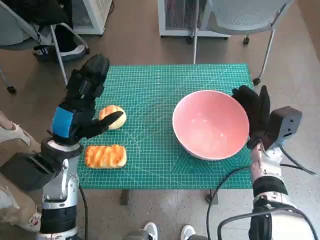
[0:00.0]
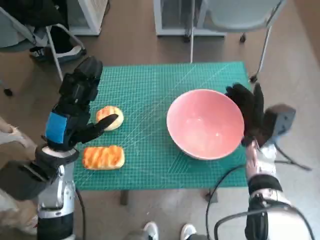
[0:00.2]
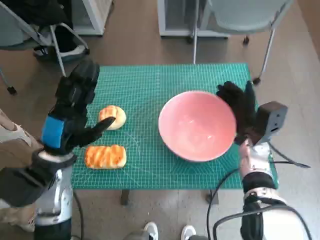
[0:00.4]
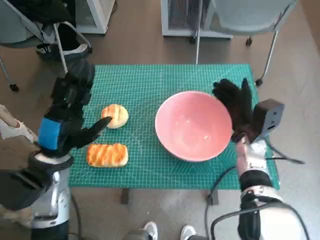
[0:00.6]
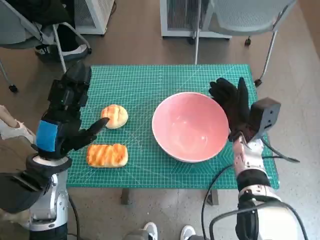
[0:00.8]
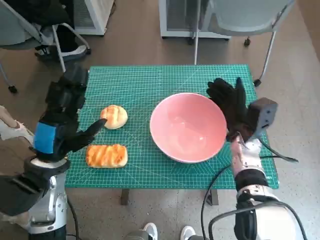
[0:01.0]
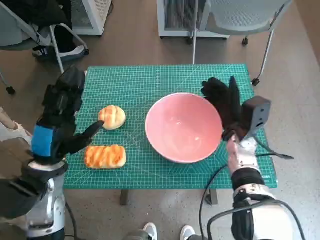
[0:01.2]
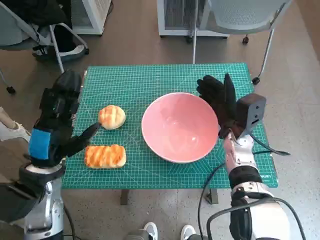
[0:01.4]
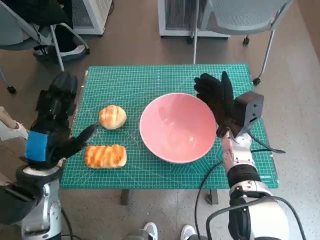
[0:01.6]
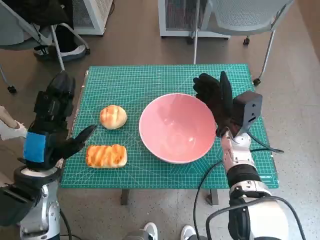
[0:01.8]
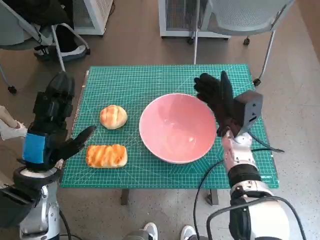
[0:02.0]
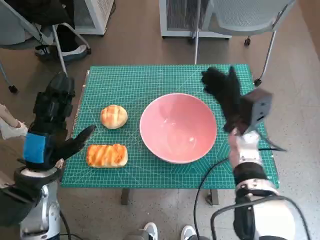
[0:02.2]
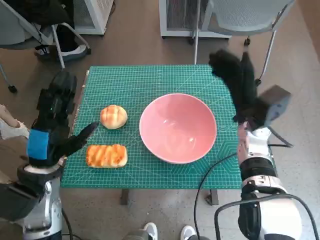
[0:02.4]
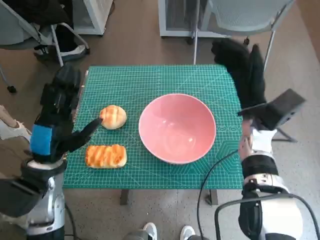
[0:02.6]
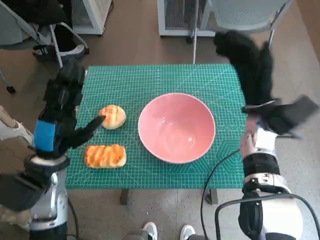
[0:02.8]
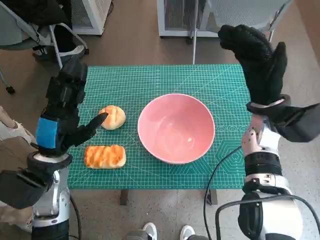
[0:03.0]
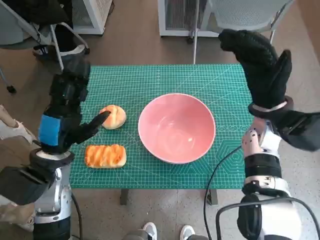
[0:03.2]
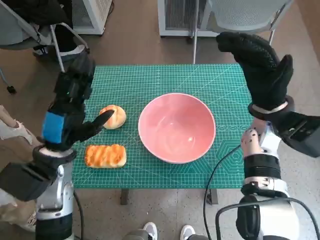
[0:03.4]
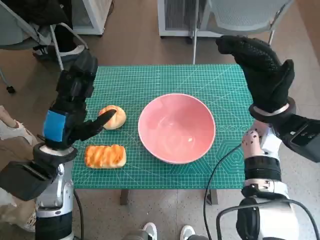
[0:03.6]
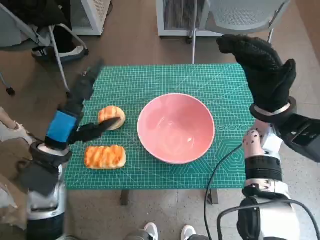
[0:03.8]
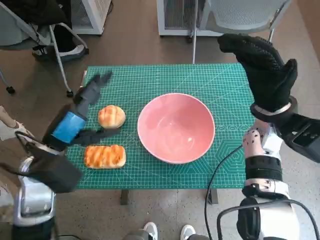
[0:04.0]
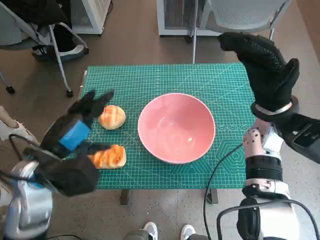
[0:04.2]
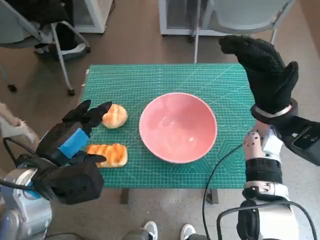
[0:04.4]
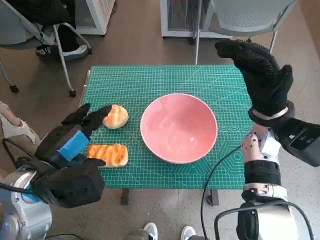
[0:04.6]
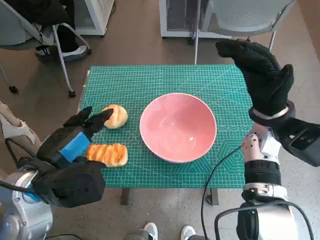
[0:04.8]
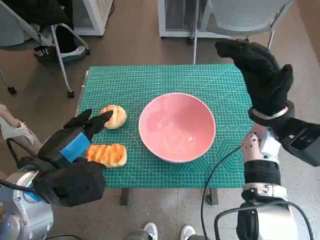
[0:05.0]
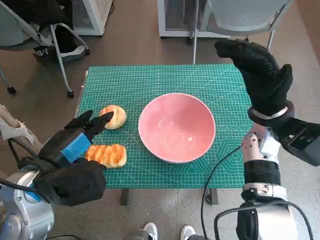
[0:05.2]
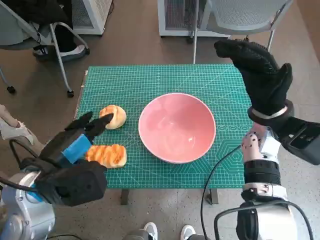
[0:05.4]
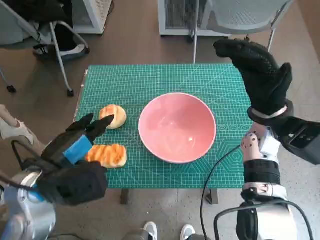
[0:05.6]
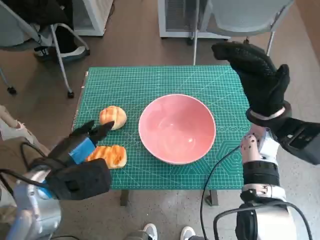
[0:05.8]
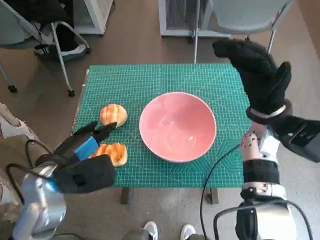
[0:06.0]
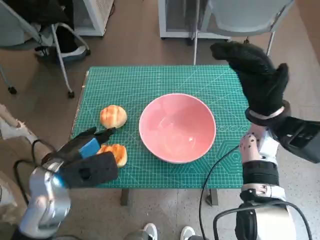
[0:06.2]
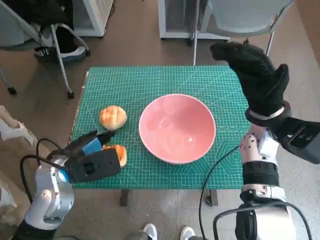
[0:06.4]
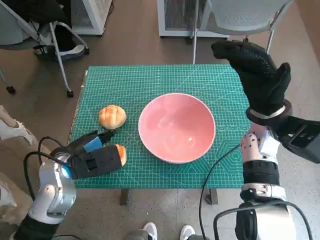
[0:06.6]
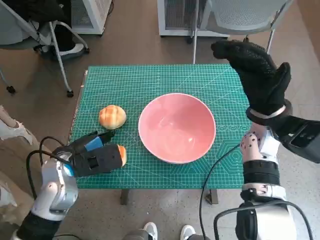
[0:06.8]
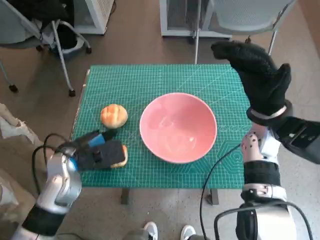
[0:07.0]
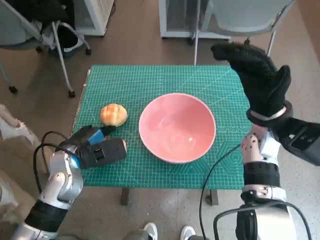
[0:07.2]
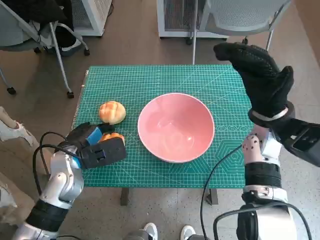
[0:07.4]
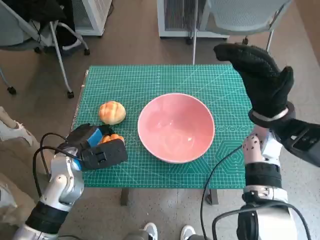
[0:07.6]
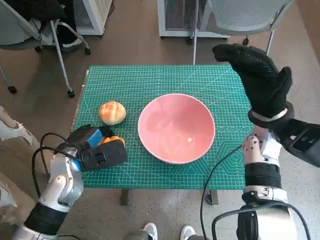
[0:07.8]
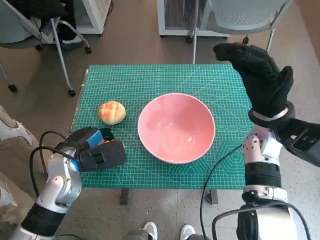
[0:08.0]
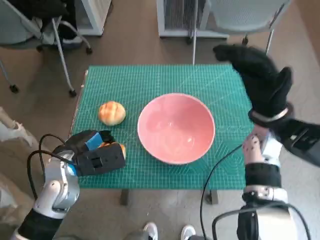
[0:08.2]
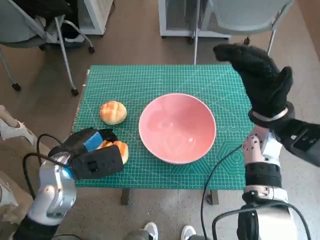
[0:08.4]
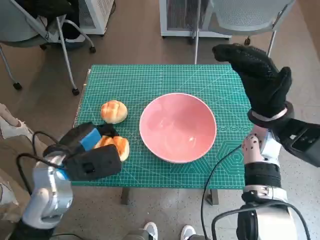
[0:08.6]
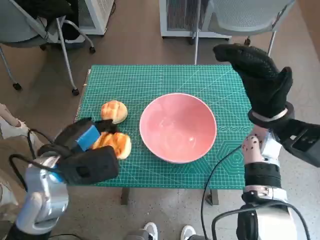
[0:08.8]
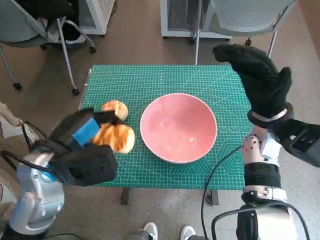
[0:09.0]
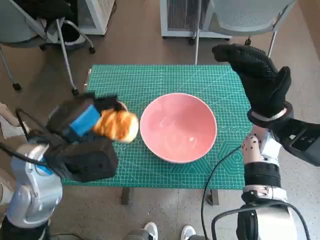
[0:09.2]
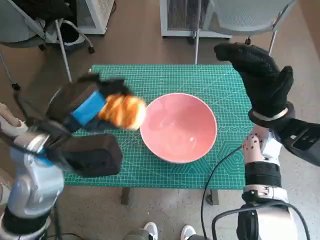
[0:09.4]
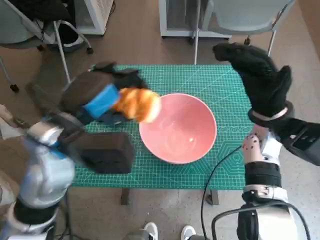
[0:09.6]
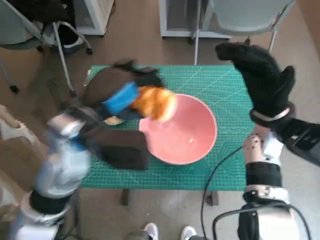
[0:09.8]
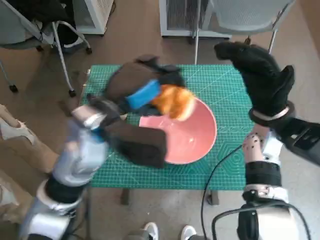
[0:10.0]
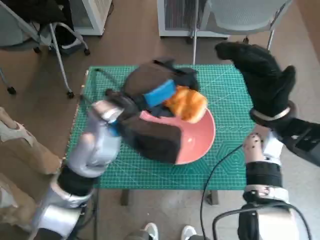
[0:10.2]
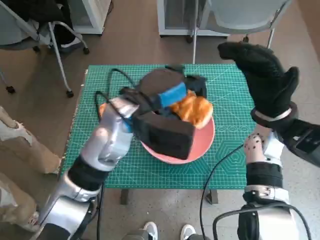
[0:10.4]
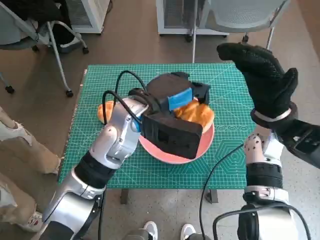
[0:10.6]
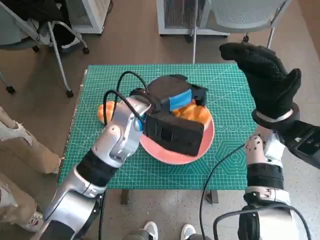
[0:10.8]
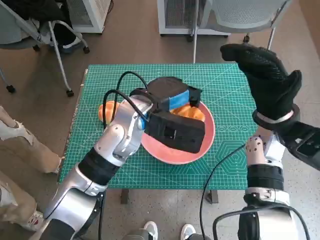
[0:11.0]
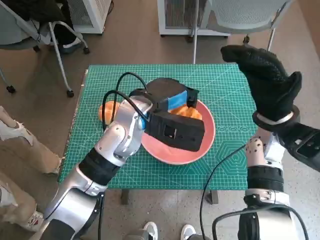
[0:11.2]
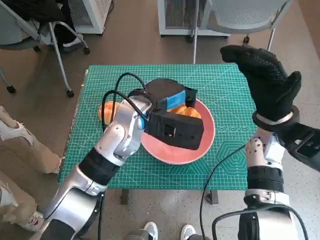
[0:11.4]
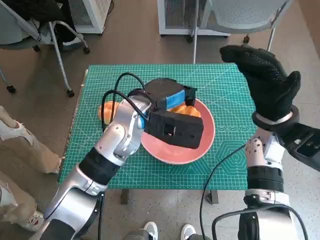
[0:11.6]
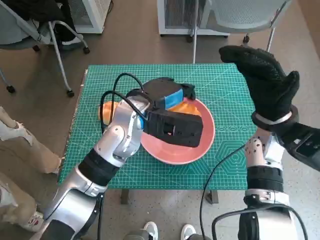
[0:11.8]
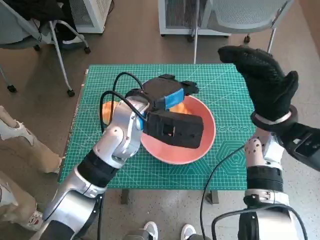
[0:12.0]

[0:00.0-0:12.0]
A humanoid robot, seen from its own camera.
Step, 0:00.0 to 0:02.2: Move the pink bowl to the center of table with right hand.
Step, 0:02.4 to 0:07.4: Grasp the long bread with left hand.
0:00.0 to 0:01.6: The right hand shifts some 5 cm to the left. The left hand shifts by approximately 5 cm.
0:01.6 to 0:03.0: The right hand travels upward by some 10 cm.
0:04.4 to 0:06.0: The hands stay close to where they were, moving slightly.
0:06.0 to 0:07.6: The left hand goes roughly 10 cm forward and downward.
0:07.6 to 0:09.0: The left hand goes about 10 cm upward.
0:09.0 to 0:10.4: The left hand goes some 15 cm to the right and forward.

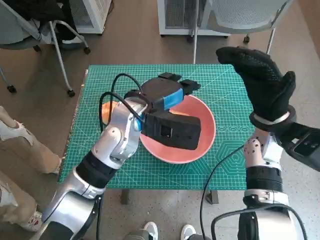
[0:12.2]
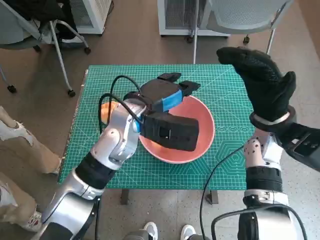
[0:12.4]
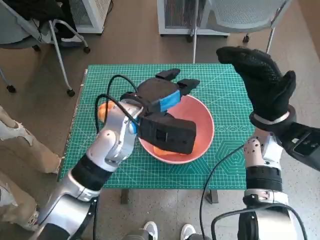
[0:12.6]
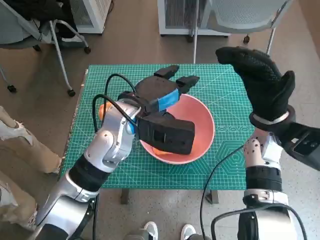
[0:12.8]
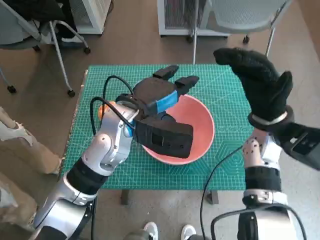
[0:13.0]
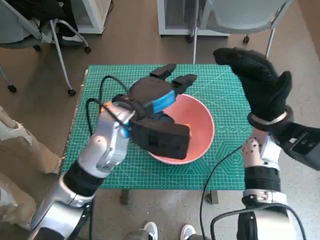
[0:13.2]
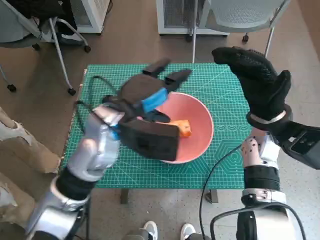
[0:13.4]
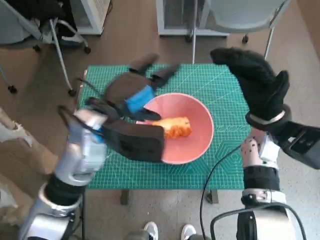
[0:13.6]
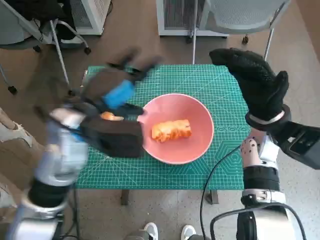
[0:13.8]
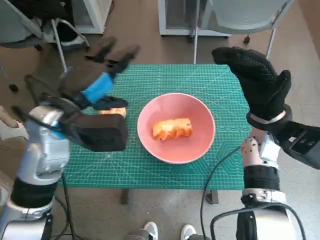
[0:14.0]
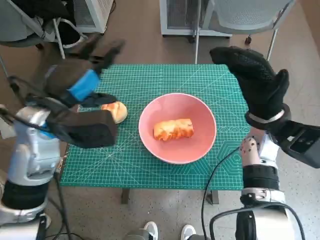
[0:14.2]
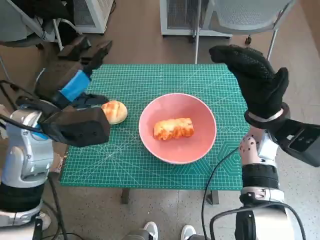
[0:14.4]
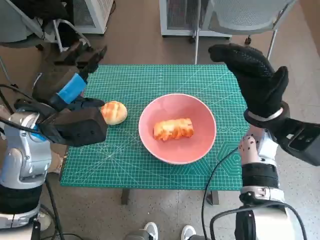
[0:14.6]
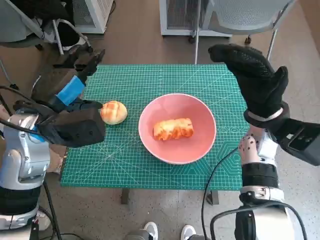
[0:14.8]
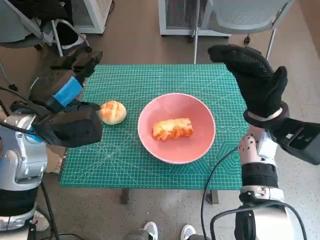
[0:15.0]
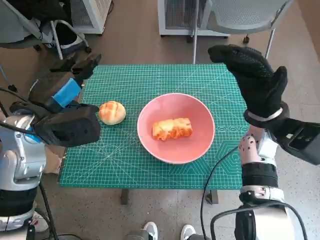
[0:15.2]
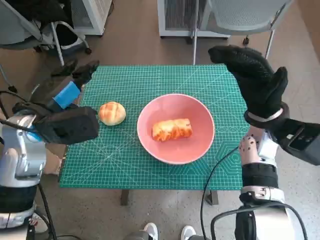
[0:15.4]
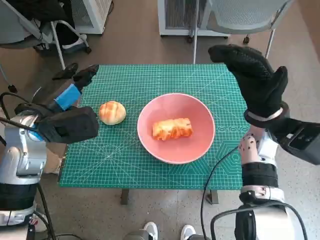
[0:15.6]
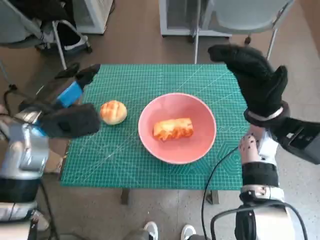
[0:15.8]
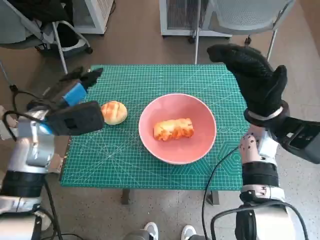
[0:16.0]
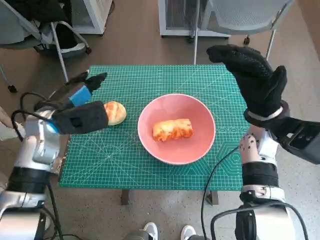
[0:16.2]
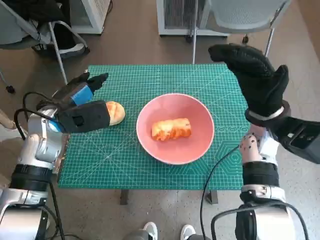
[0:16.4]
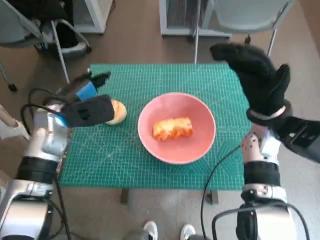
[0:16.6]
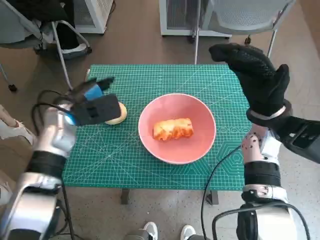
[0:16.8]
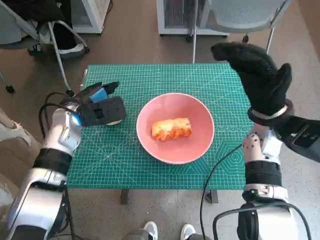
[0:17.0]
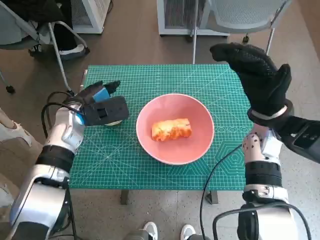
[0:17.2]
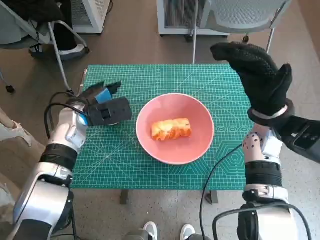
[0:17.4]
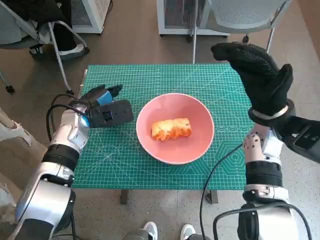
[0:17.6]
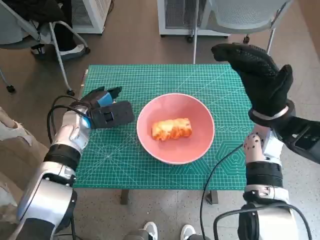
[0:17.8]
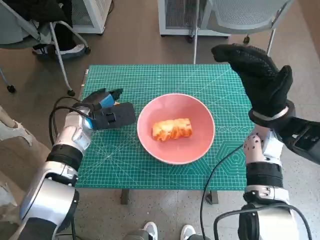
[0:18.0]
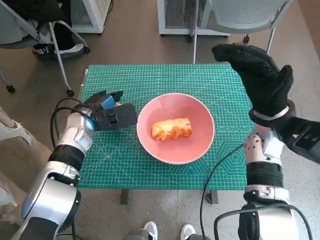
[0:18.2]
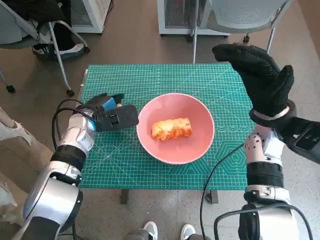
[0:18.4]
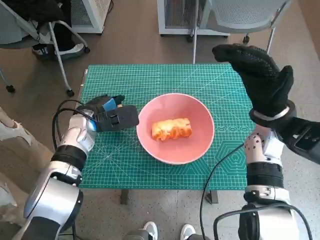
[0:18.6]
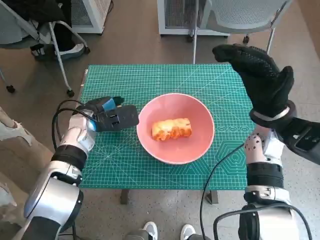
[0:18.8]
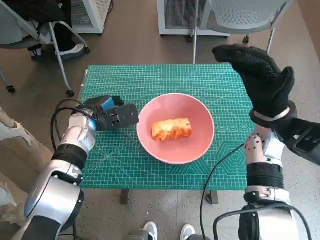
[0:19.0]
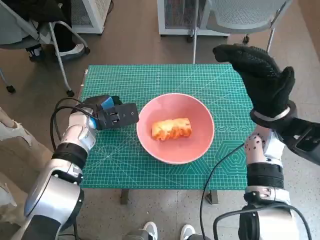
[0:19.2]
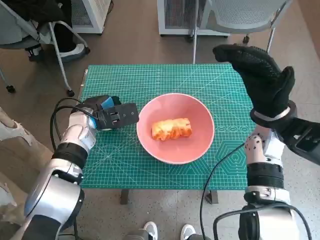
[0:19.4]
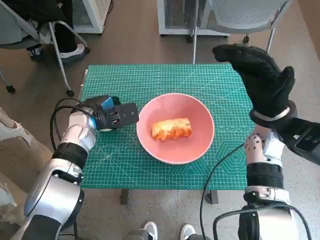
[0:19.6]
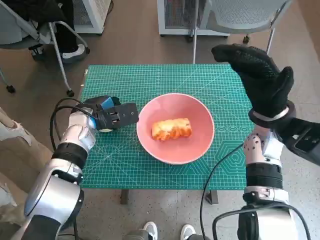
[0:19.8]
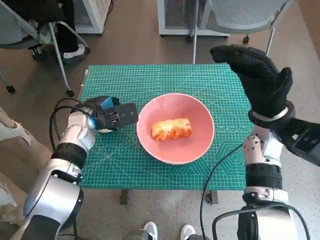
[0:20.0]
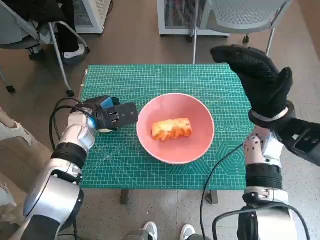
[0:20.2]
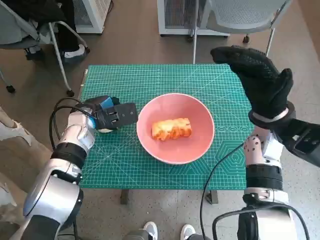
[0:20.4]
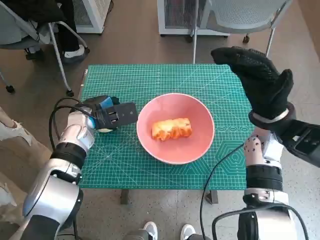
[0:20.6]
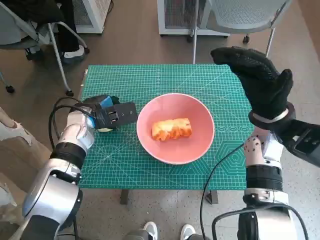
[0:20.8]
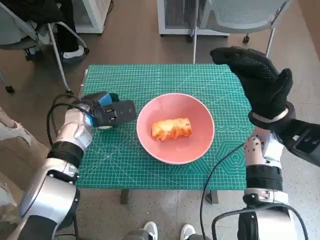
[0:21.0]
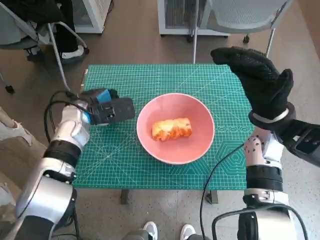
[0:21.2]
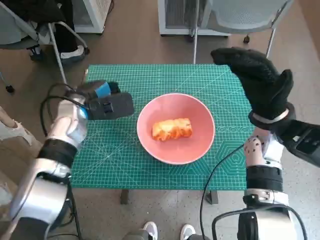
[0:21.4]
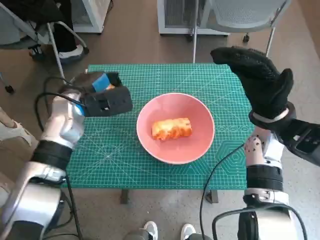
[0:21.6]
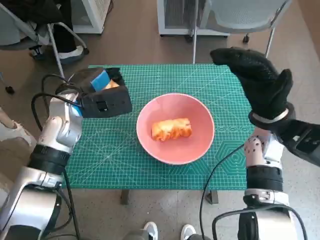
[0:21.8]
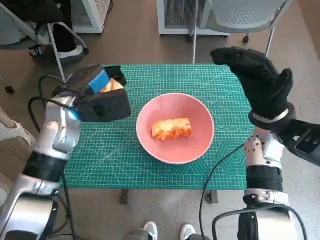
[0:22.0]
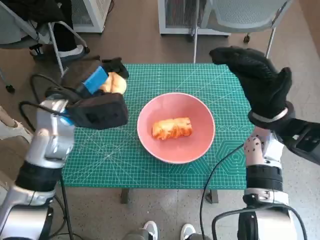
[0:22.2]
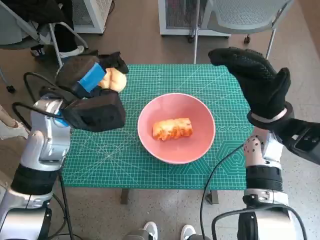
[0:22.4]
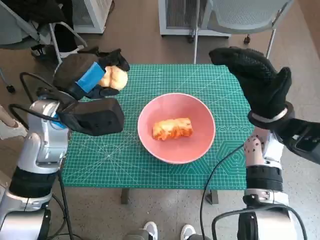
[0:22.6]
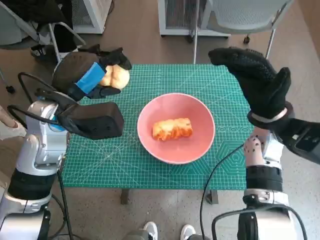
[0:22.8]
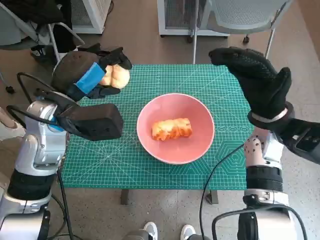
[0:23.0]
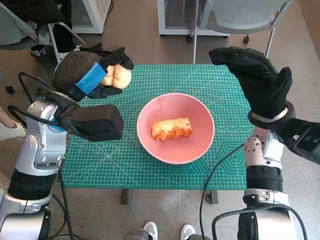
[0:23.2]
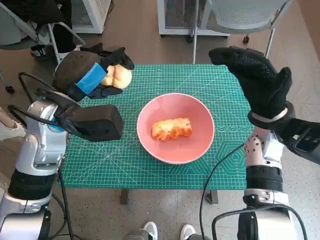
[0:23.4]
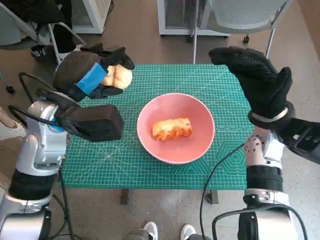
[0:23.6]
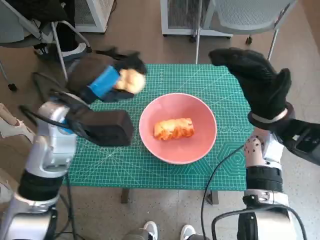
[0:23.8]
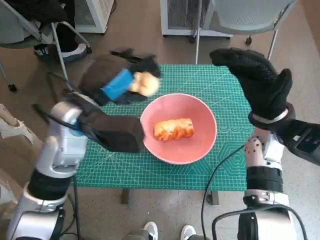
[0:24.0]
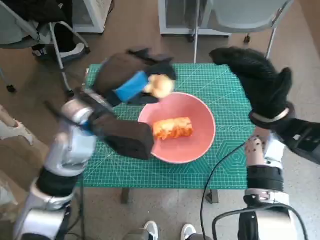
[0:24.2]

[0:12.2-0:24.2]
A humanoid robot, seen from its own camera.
Step, 0:12.4 to 0:20.0: Grasp the round bread with left hand.
0:12.2 to 0:13.8: The left hand travels to the left by approximately 10 cm.
0:13.8 to 0:15.2: The left hand goes approximately 10 cm to the left.
0:15.2 to 0:16.6: The left hand moves forward and downward, approximately 10 cm.
0:16.6 to 0:18.2: The left hand is displaced downward by some 5 cm.
0:18.2 to 0:21.2: The hands move only a little.
0:21.2 to 0:22.6: The left hand is displaced upward and backward by approximately 10 cm.
0:22.6 to 0:24.2: The left hand heads to the right, covering some 5 cm.
